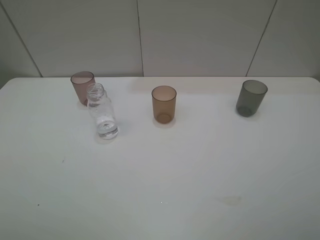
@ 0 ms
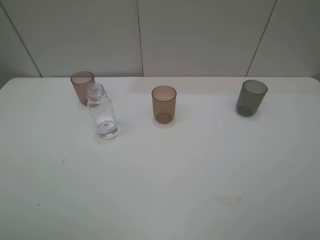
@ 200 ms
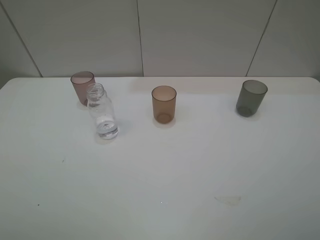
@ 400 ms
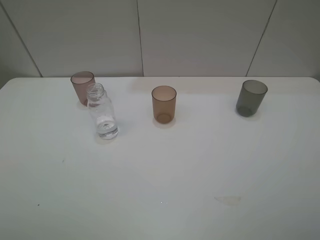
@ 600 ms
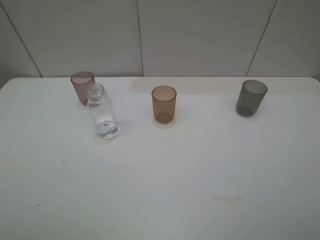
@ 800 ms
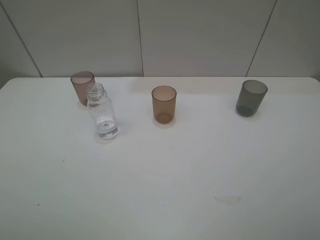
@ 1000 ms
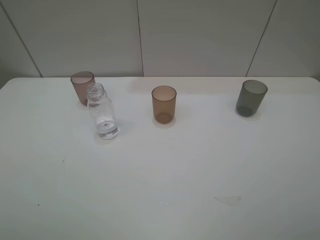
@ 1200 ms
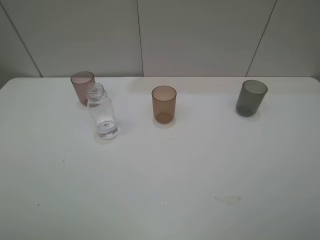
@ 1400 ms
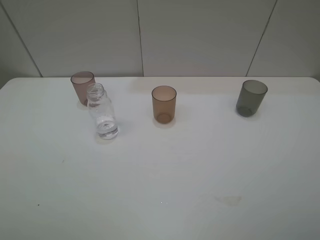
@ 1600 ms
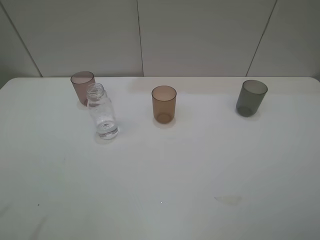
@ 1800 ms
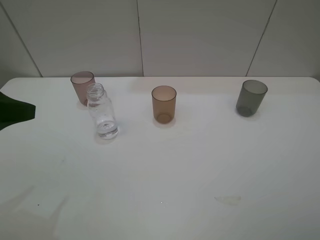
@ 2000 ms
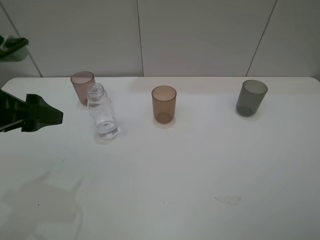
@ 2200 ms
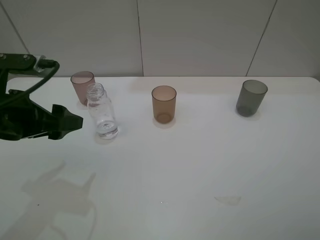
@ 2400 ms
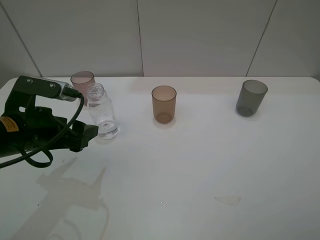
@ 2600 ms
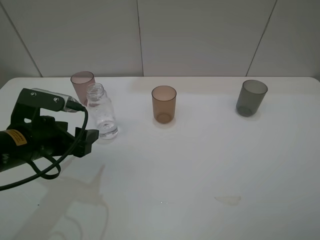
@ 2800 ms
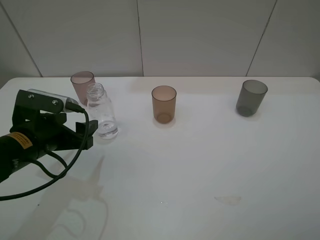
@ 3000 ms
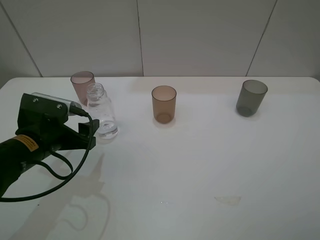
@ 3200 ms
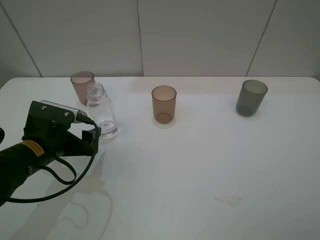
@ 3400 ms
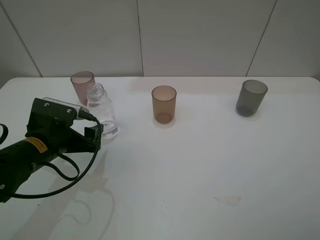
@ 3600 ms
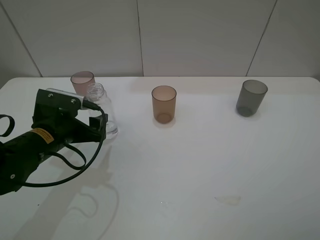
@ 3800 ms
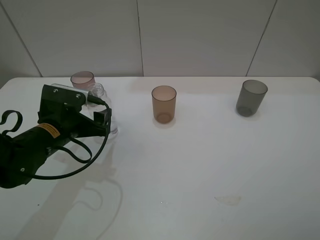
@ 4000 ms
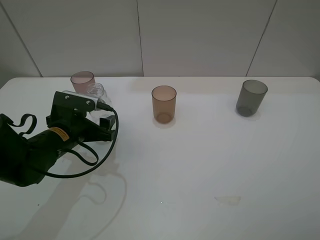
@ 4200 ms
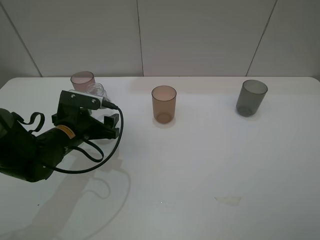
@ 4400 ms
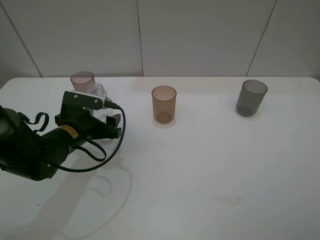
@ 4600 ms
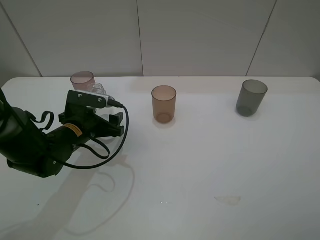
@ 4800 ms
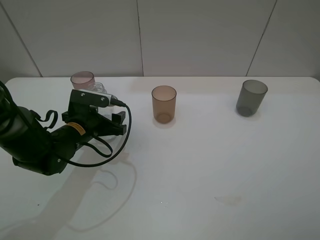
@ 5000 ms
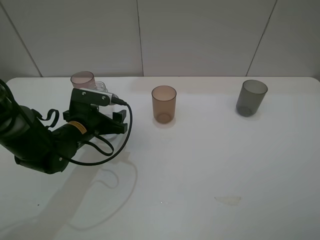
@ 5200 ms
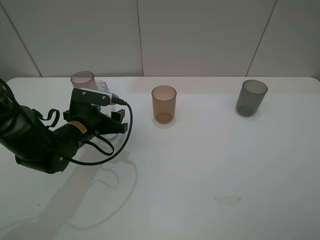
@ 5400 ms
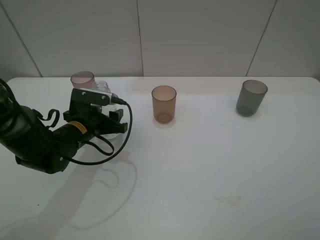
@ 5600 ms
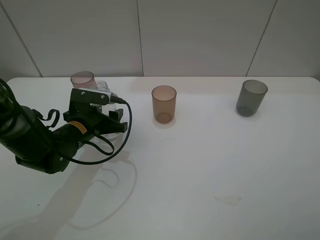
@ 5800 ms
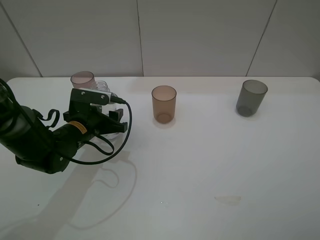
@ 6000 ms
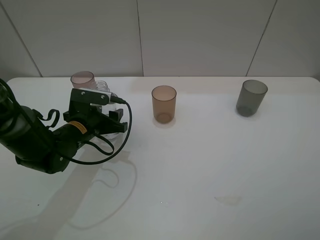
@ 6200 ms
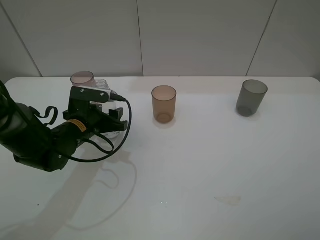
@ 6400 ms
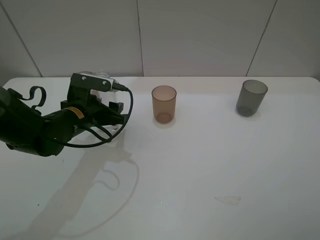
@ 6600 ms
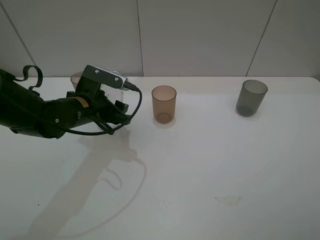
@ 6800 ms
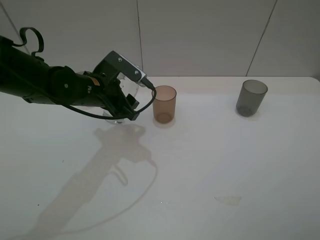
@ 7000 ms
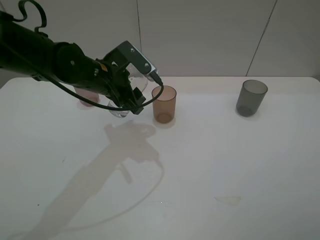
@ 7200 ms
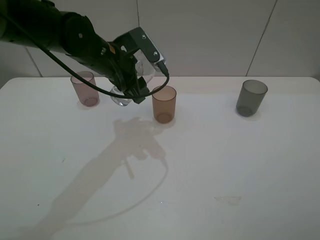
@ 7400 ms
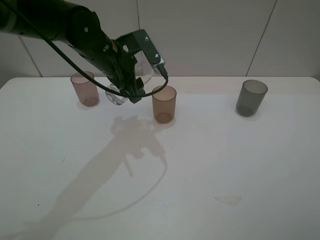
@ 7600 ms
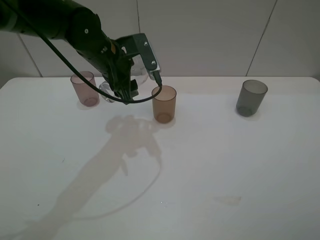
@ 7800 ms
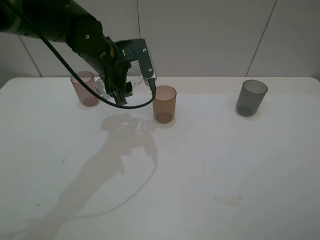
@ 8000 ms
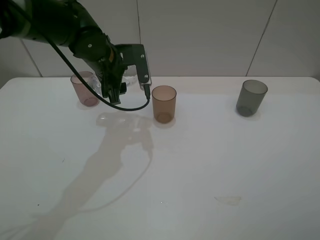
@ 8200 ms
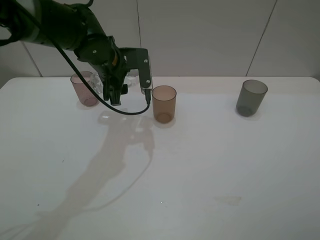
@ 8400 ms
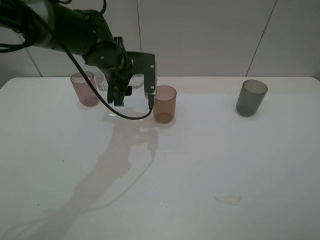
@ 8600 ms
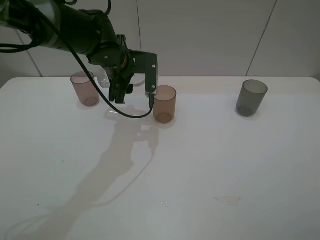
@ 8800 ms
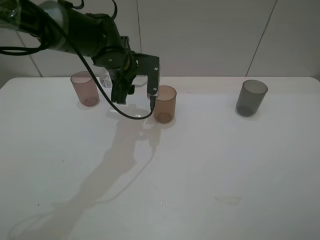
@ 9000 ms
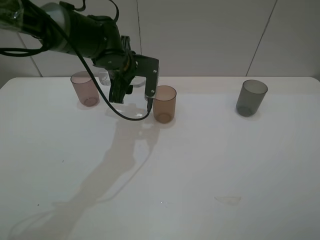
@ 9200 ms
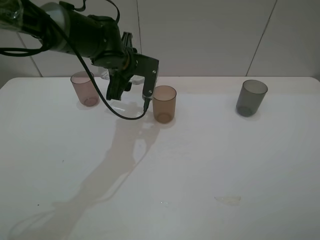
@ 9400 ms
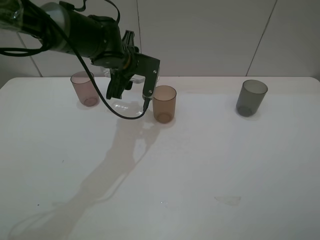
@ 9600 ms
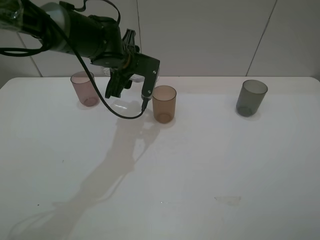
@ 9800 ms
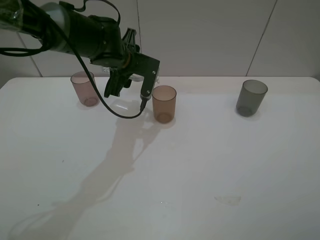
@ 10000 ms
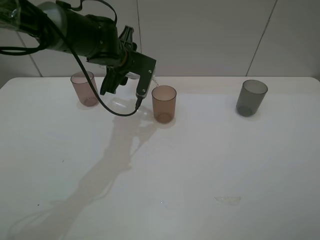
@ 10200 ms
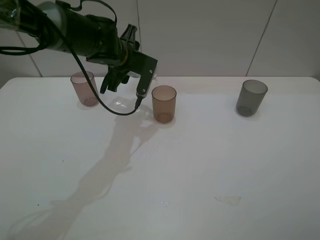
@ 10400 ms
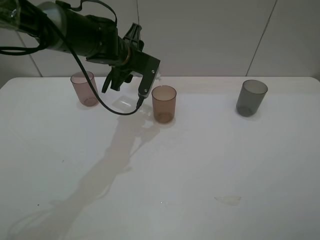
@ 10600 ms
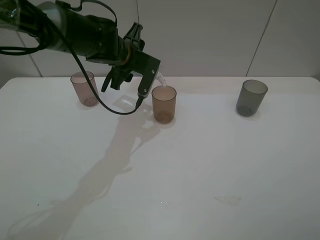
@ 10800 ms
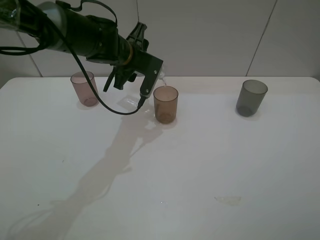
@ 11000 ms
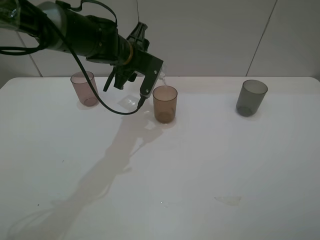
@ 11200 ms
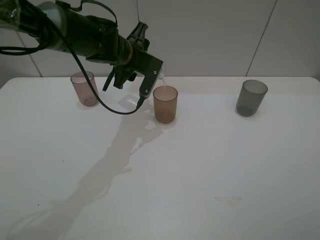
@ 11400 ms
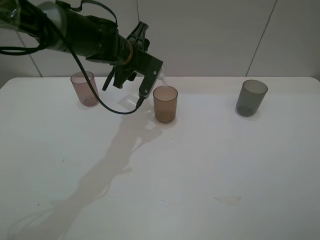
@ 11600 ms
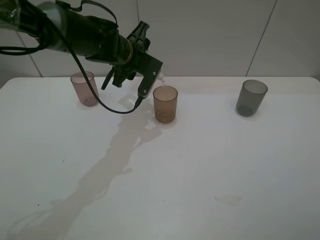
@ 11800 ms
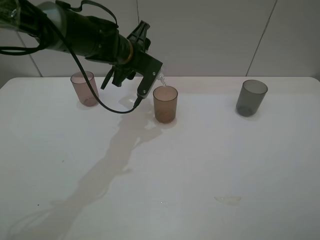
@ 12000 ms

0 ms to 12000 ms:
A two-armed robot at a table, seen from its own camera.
Task of the whole recording: pick up the bottle filled with water and pour water into the middle cup of the three cups.
Step, 0 ms to 5000 ms: Grasp the transparent bottle with the left gripper.
Step, 5200 ms to 9400 ms: Pour water from transparent bottle to brown cup with the left gripper.
1600 ms to 3000 ms: The left gripper moves downward, forward and to the right, some 25 cm.
3000 ms to 4400 ms: The left gripper goes about 5 cm forward.
4400 ms to 6000 ms: The left gripper closes its fingers.
6000 ms to 7600 ms: The left gripper moves upward, forward and to the right, approximately 15 cm.
10400 ms to 12000 ms: The grippers stay close to where they were, moving slightly.

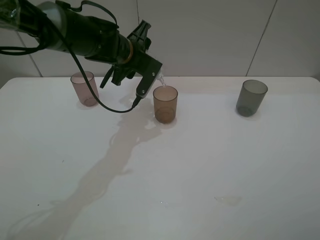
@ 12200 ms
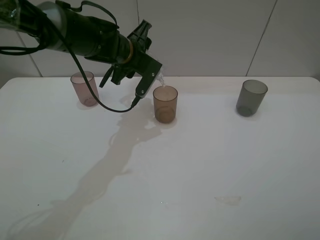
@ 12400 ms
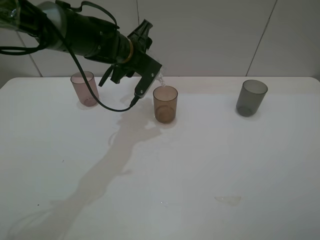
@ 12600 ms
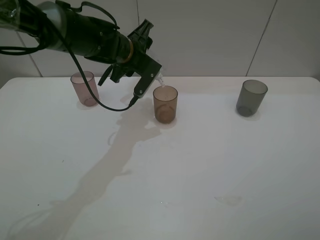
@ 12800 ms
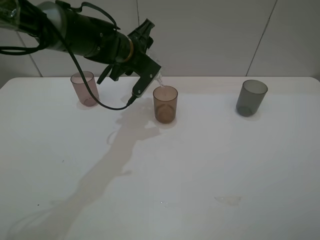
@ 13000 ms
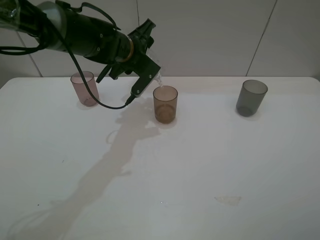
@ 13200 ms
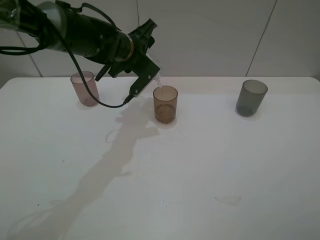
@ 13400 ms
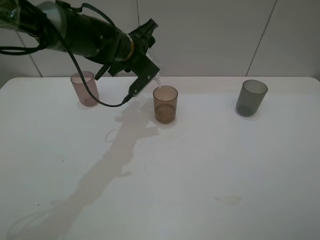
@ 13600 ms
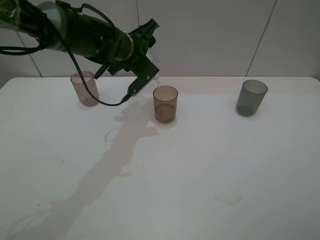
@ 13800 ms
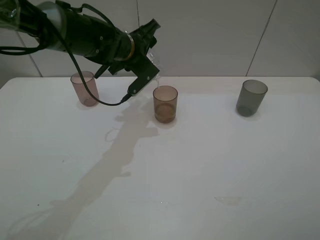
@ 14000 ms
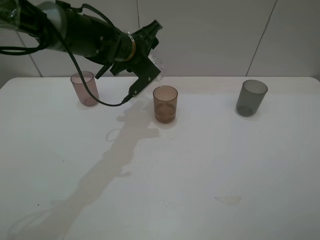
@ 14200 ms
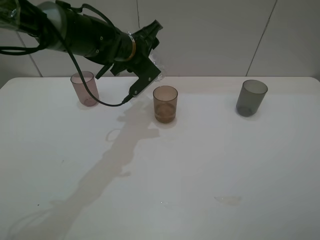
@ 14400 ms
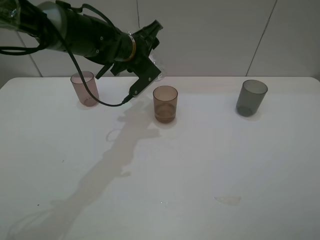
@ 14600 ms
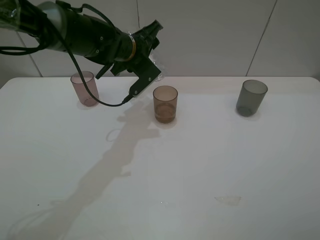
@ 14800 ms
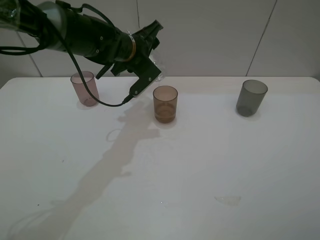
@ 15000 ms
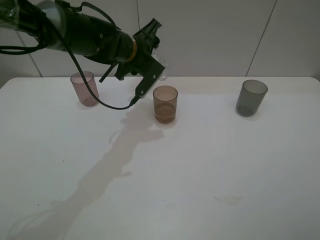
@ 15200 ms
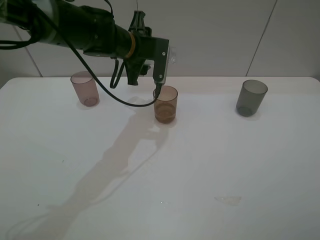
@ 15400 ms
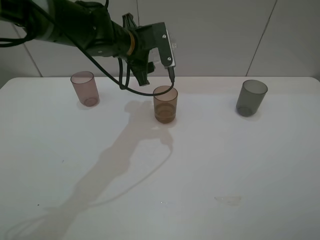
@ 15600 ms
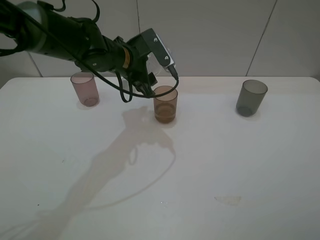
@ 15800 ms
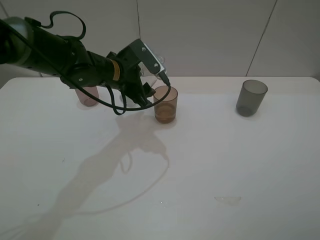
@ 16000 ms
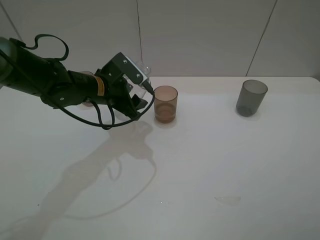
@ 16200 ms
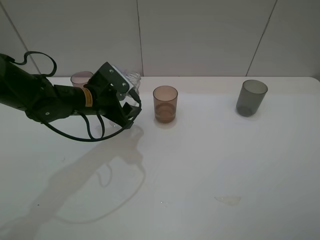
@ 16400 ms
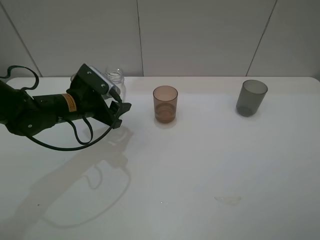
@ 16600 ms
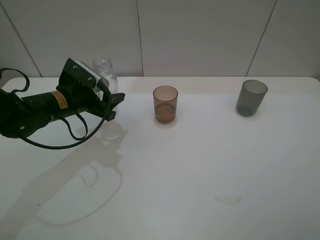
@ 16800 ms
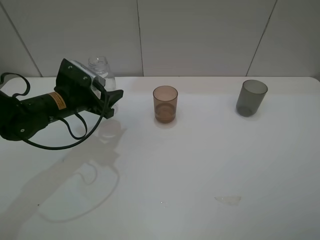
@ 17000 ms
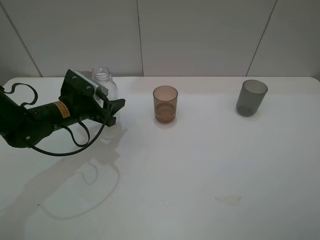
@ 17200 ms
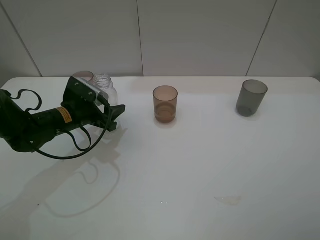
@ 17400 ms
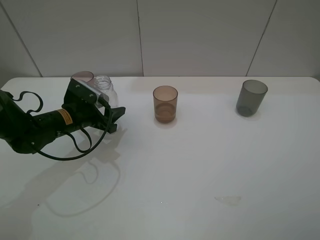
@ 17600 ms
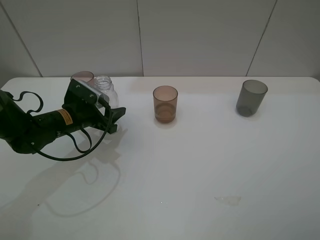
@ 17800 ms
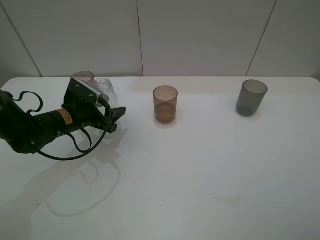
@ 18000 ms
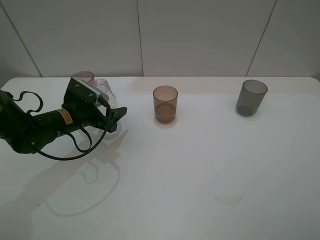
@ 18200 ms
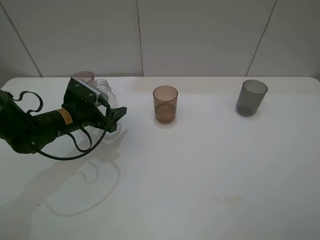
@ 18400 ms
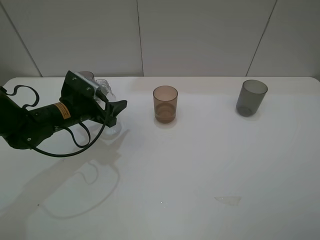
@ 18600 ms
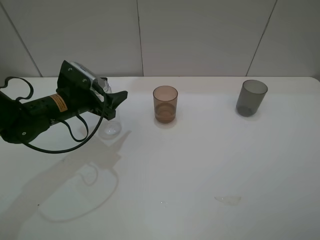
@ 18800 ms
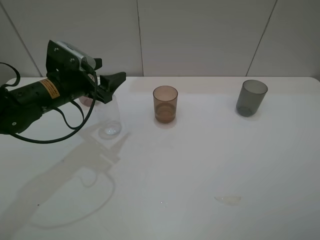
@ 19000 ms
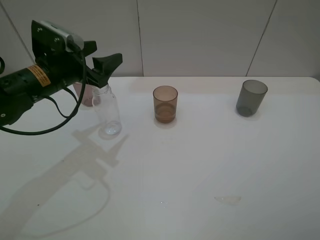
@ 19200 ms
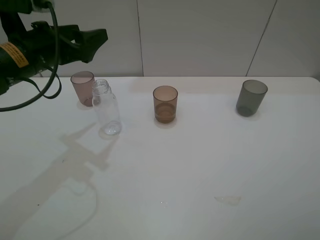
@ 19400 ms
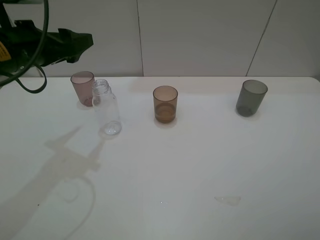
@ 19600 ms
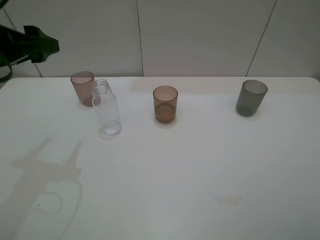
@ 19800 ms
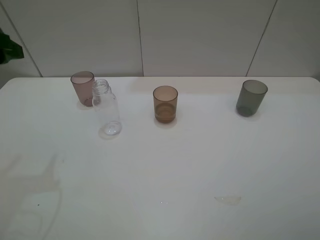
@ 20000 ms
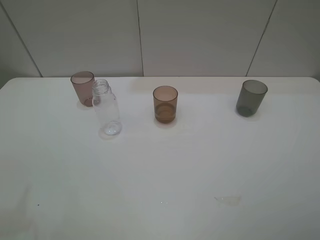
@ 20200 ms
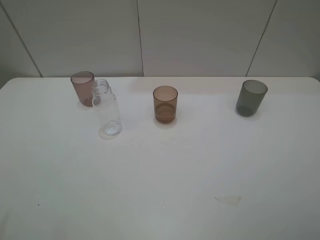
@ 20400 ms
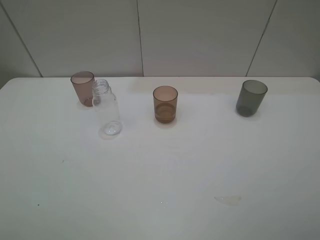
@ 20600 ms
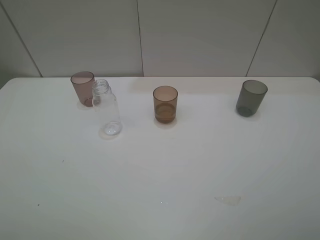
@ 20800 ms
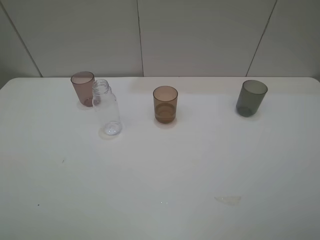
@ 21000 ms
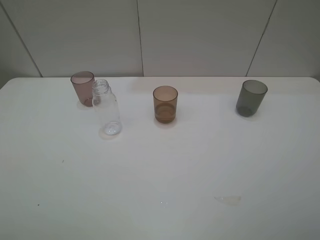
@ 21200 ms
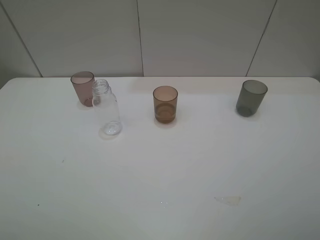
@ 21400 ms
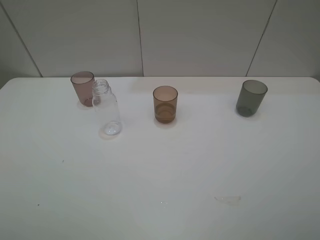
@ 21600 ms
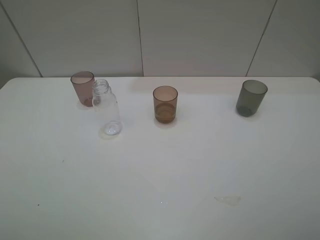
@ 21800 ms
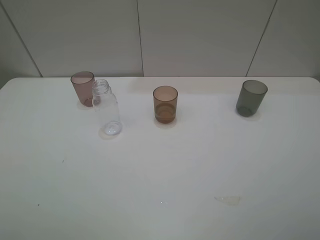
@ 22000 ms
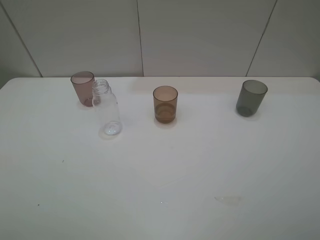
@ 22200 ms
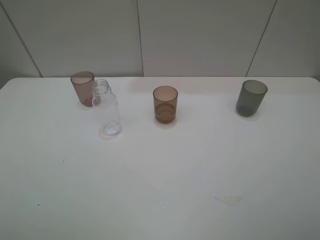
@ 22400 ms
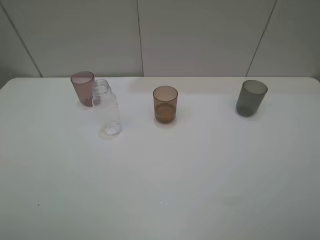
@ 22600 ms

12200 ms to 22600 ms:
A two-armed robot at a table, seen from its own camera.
Task of the whole recording: pick up the bottle filled with water and pour water into the middle cup of the three cups.
Step, 12200 ms to 18600 ms: Place the transparent bottle with the left gripper.
12200 ms to 15200 ms: There are only small adjustments of the grippers.
15200 ms to 16600 ms: The left gripper travels to the left, backward and downward by about 15 cm.
16600 ms to 18200 ms: The left gripper opens.
18200 ms to 19600 ms: The left gripper heads upward, covering approximately 15 cm, and opens up.
19600 ms to 21200 ms: The left gripper is displaced backward by about 30 cm.
